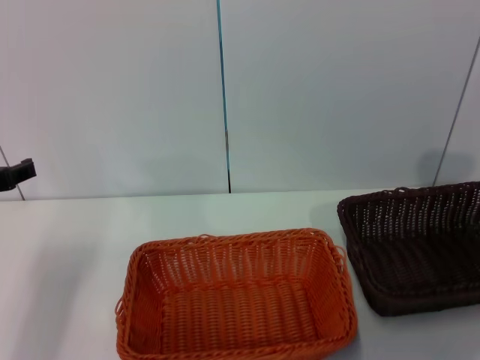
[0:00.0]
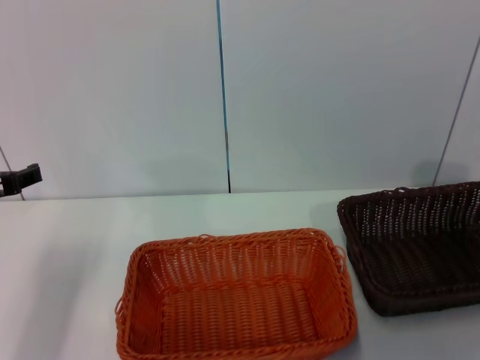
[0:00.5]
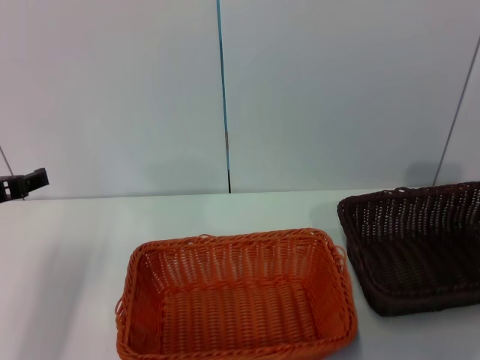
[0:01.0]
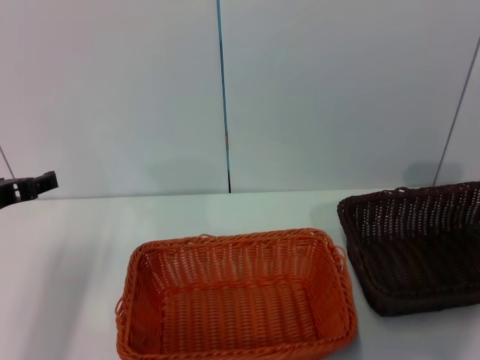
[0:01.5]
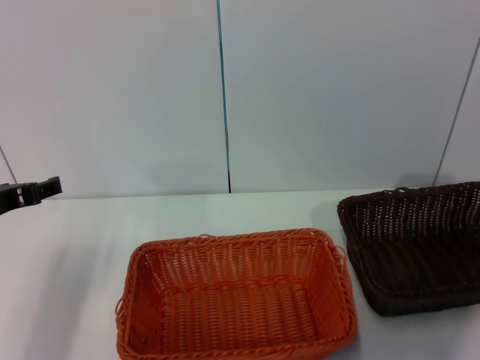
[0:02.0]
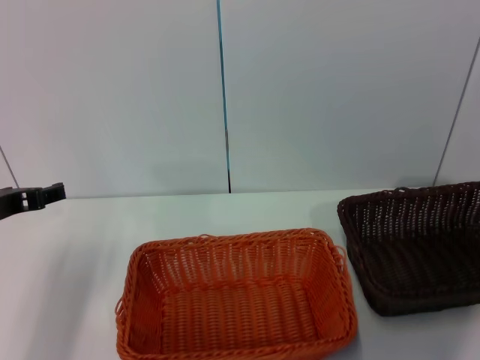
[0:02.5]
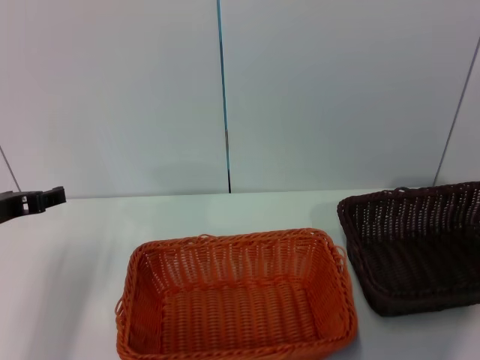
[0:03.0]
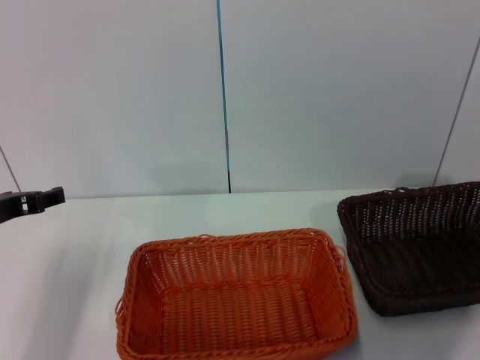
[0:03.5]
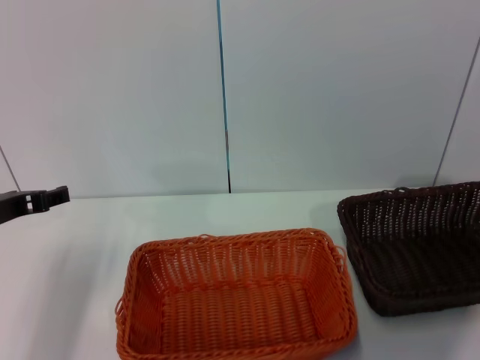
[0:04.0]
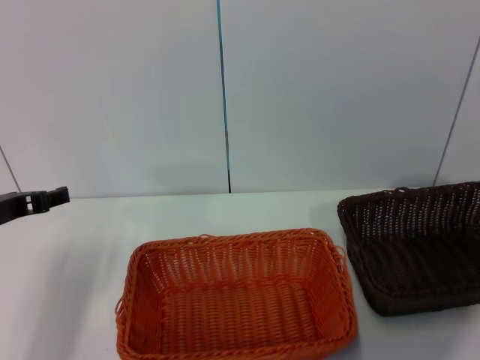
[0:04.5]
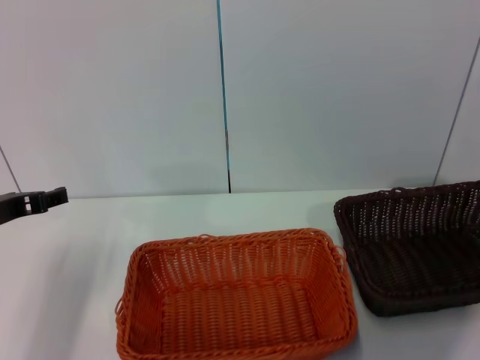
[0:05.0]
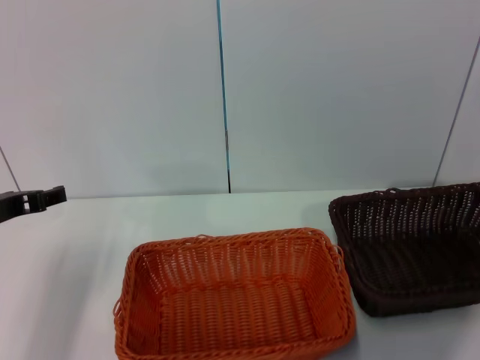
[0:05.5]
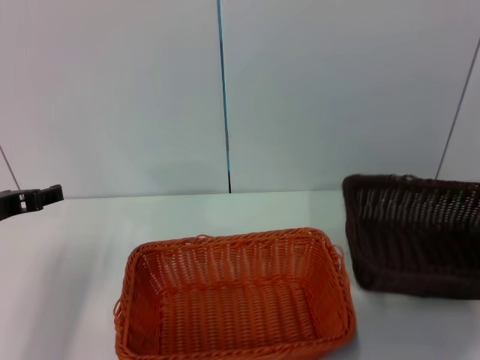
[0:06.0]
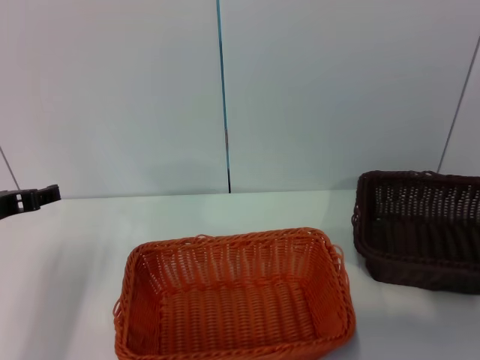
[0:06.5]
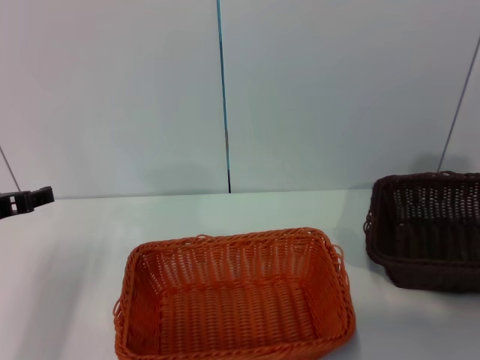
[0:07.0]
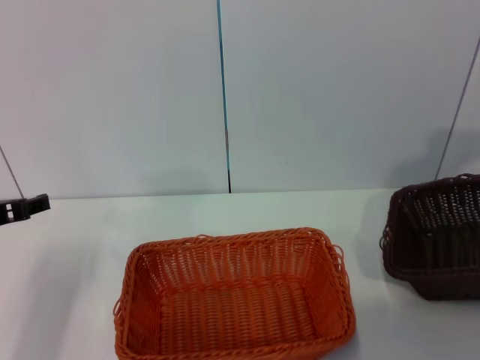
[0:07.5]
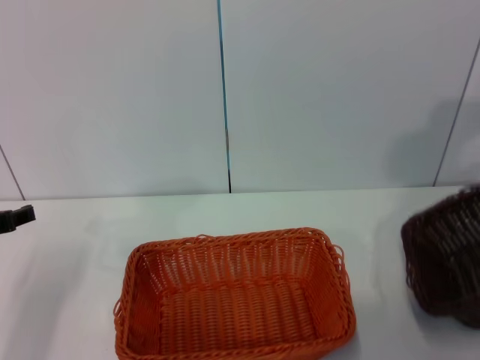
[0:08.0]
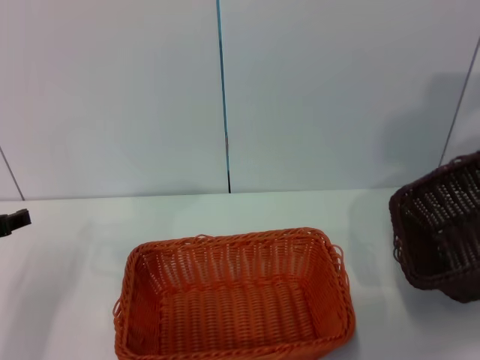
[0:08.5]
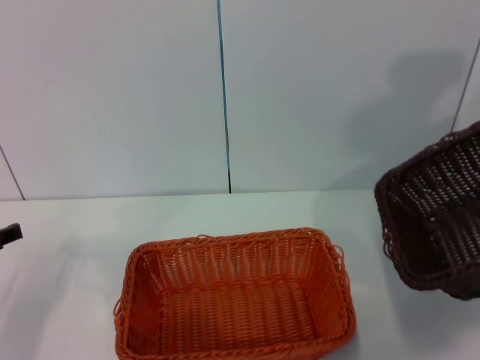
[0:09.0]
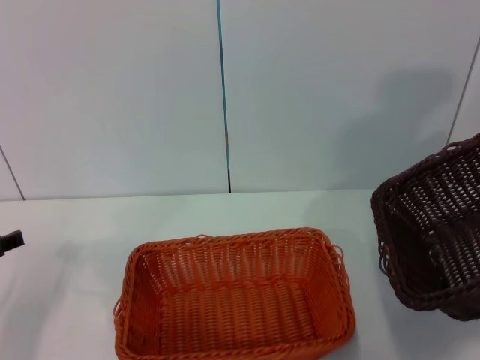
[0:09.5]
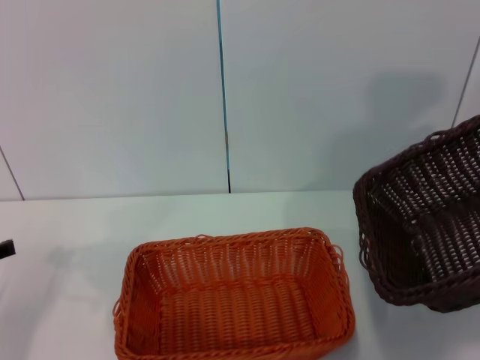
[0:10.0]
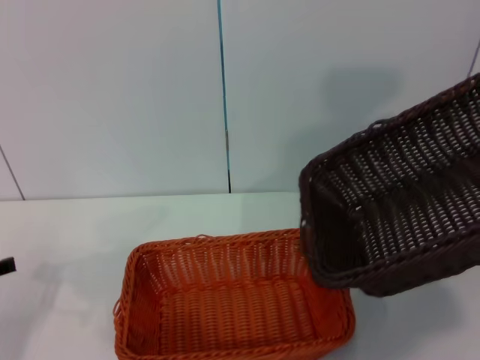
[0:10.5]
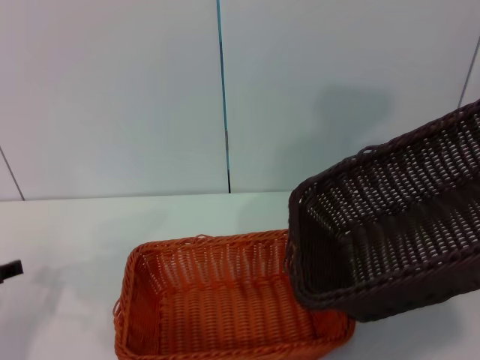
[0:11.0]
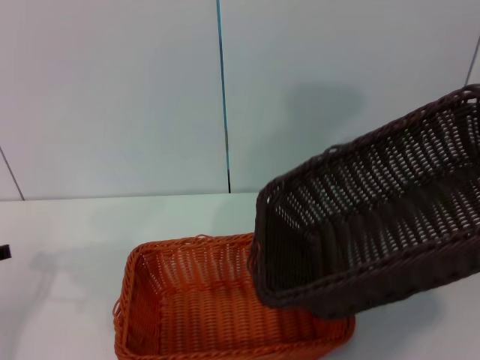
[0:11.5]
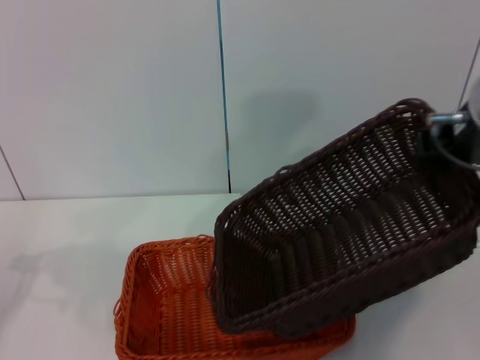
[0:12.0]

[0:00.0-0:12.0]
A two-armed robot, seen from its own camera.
Step, 0:00.0 to 0:06.0: Pick up the dark basket with the right gripper.
0:02.0 to 0:04.0: Both grippers stay about where they are.
0:04.0 to 0:06.0: The right gripper closes its fingers.
0:06.0 to 0:08.0: The right gripper heads upward, covering about 20 cm.
0:08.0 to 0:10.0: The right gripper moves upward, backward and to the left, some 15 cm.
0:10.0 to 0:12.0: The right gripper is displaced to the left by about 15 cm.

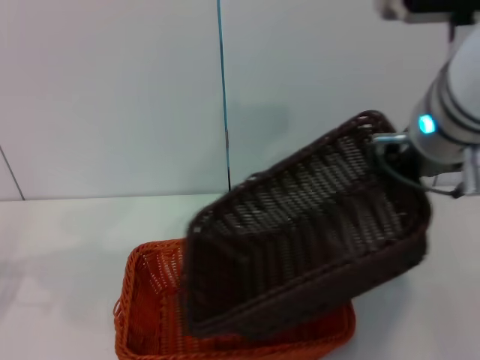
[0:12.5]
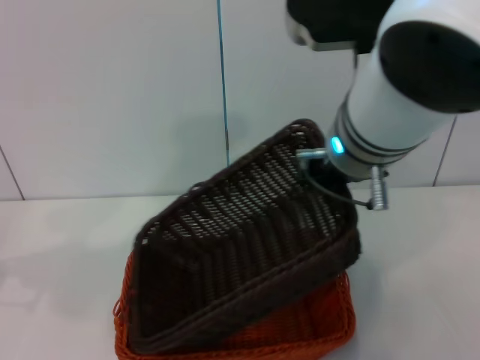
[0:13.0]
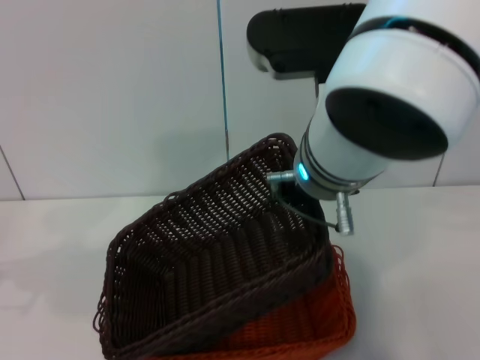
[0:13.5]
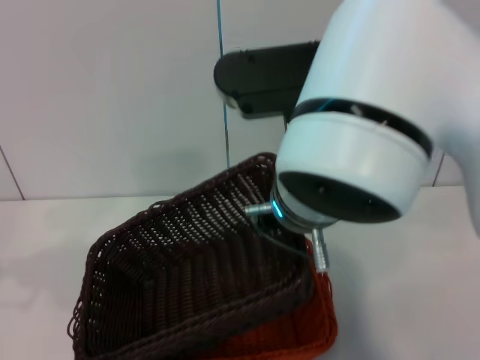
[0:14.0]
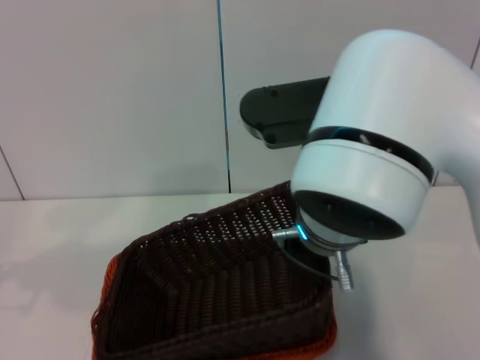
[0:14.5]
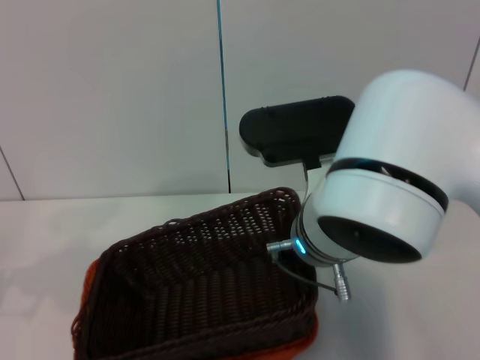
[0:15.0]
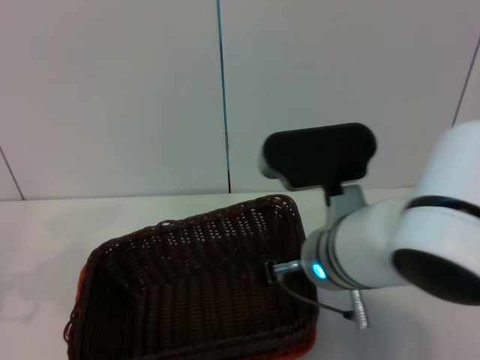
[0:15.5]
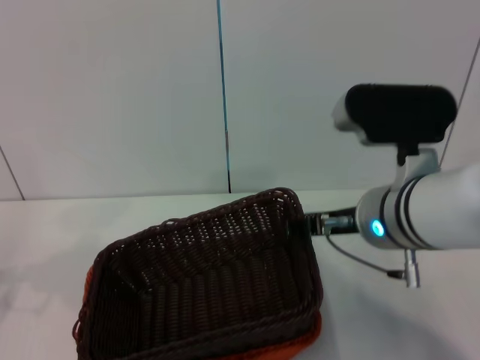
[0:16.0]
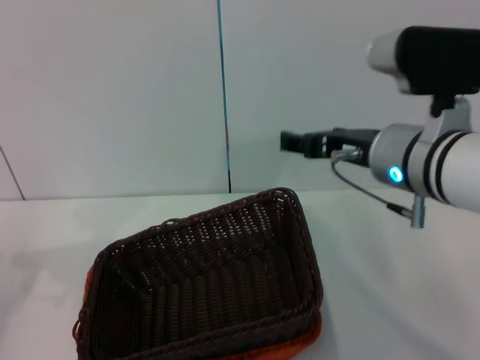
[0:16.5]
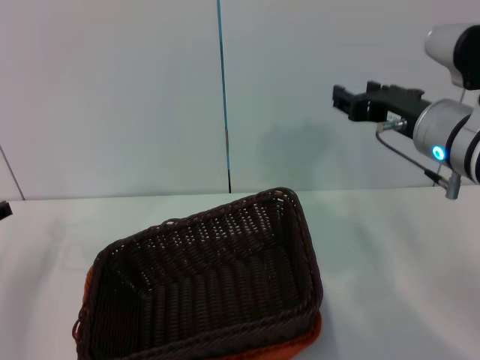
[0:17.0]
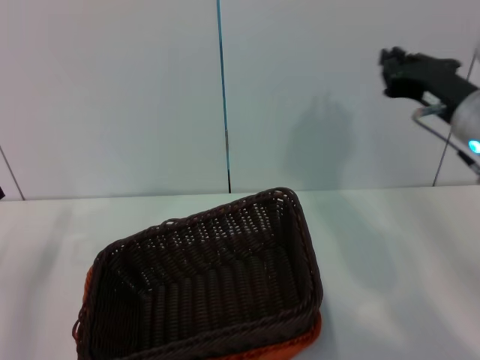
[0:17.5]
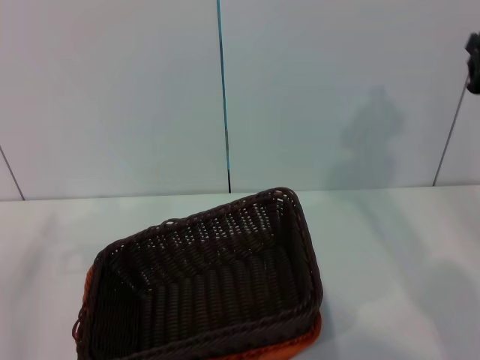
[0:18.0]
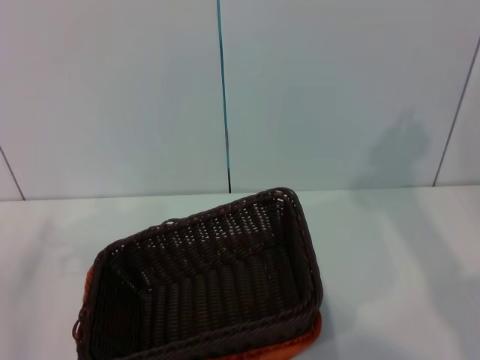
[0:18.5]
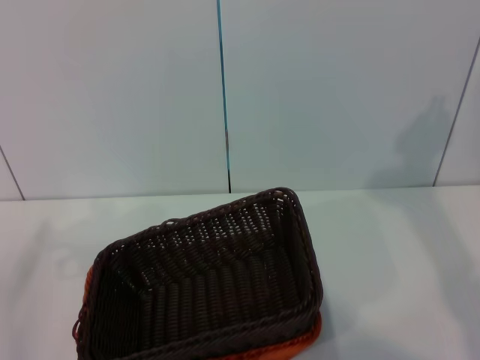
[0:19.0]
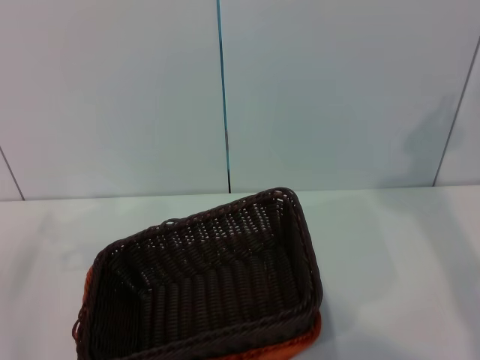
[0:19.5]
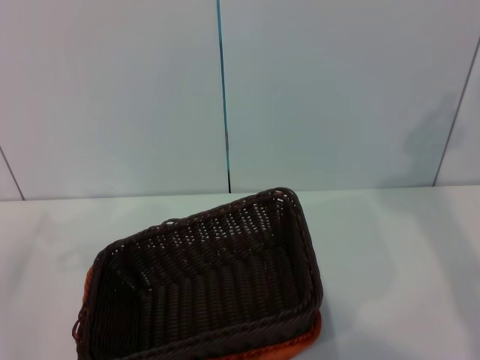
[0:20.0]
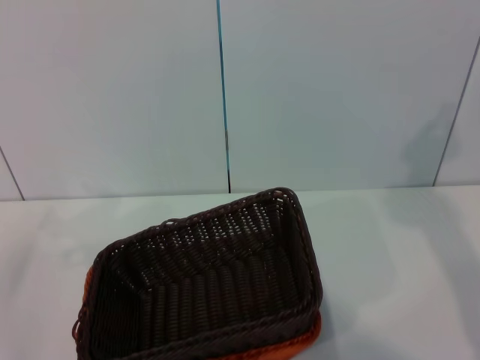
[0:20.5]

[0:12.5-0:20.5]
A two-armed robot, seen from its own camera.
Step, 0:12.5 to 0:16.0: Place the dark basket on the light basket with the right gripper.
0:12.5 to 0:14.5: The right gripper shifts approximately 10 cm downward and to the left.
0:14.5 to 0:16.5: The right gripper heads to the right, covering roughly 10 cm, and opens.
0:16.5 to 0:18.5: The right gripper moves to the right, approximately 20 cm, and closes.
